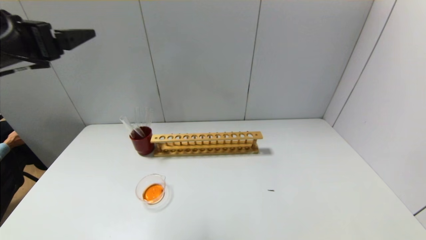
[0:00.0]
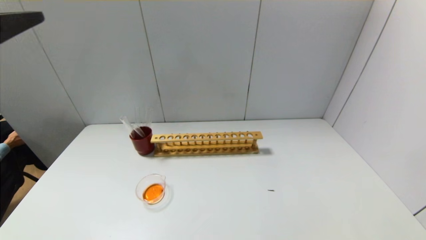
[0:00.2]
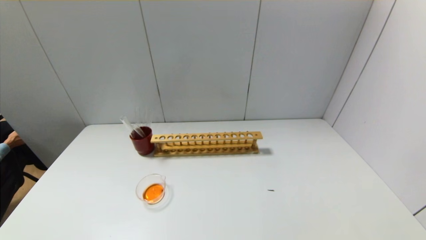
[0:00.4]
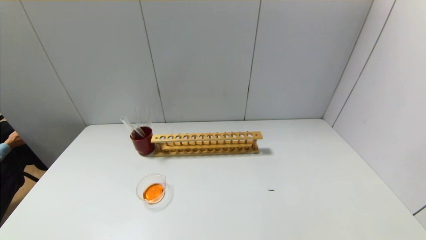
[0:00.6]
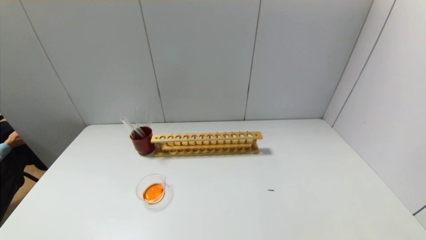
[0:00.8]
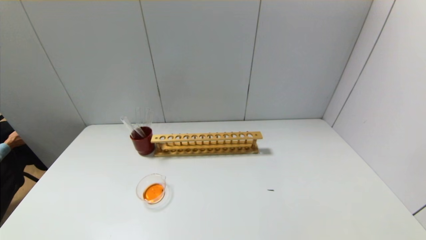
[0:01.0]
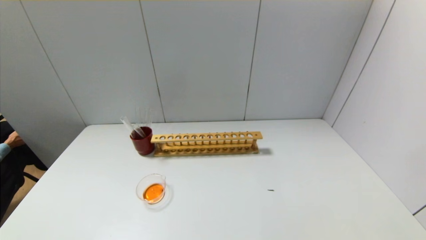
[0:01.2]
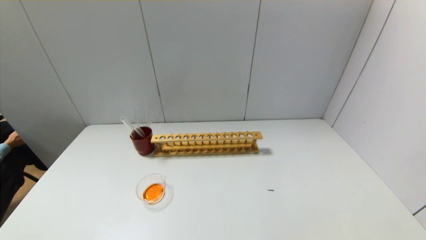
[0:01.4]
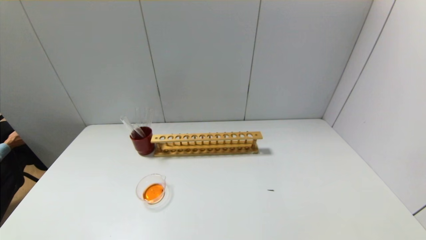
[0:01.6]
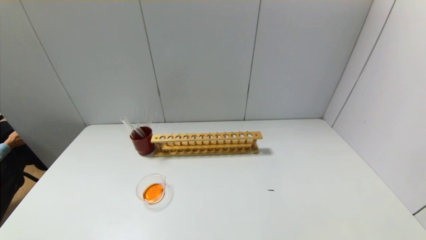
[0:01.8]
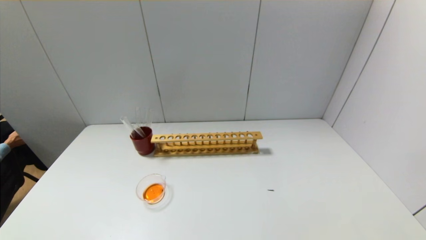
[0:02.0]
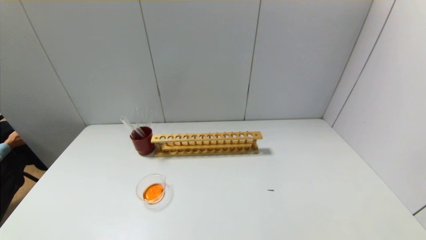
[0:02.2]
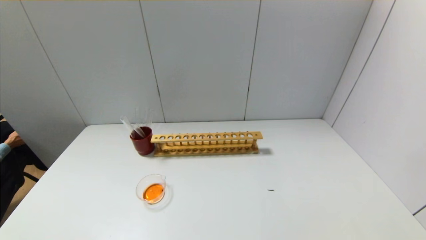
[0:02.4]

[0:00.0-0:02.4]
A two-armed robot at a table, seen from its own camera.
0:00.0 to 0:01.2: The left gripper heads backward and downward, covering approximately 35 cm.
